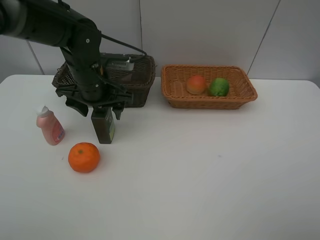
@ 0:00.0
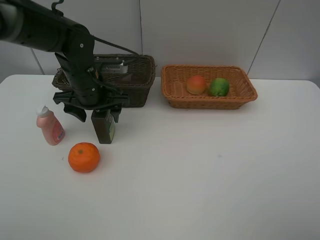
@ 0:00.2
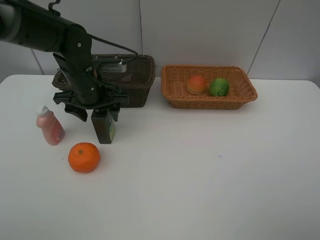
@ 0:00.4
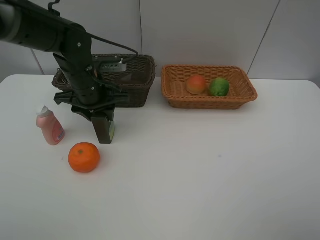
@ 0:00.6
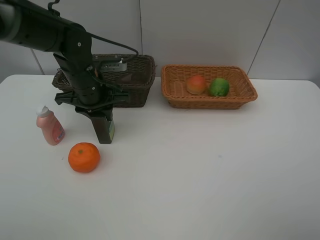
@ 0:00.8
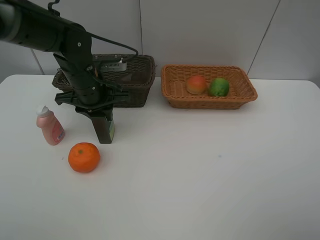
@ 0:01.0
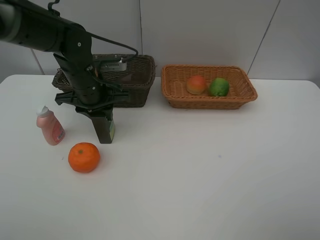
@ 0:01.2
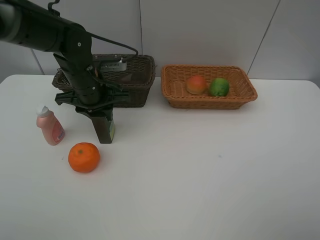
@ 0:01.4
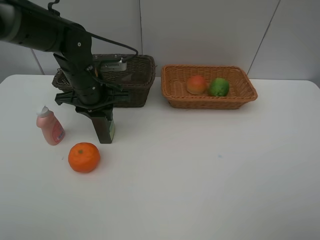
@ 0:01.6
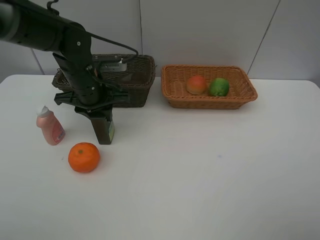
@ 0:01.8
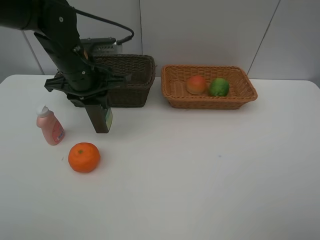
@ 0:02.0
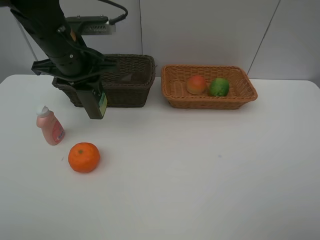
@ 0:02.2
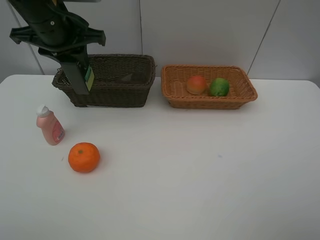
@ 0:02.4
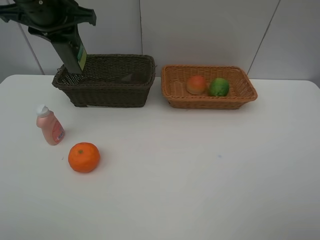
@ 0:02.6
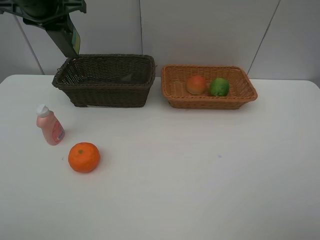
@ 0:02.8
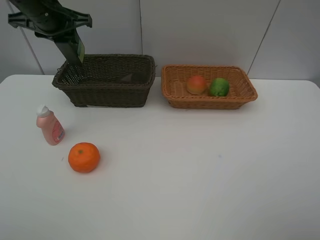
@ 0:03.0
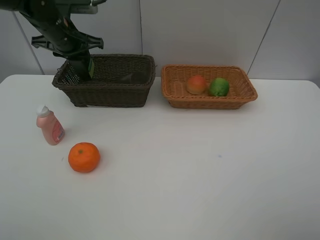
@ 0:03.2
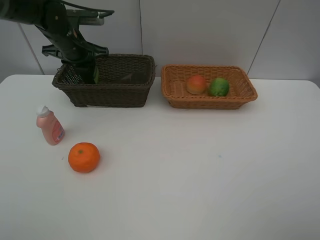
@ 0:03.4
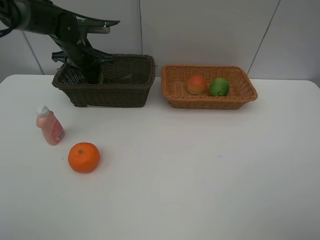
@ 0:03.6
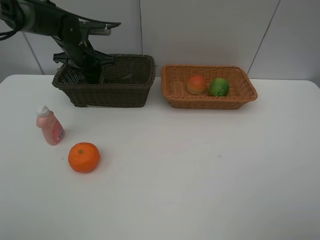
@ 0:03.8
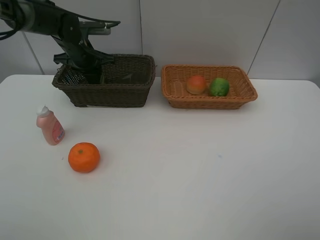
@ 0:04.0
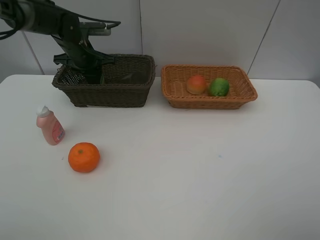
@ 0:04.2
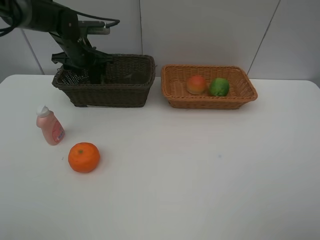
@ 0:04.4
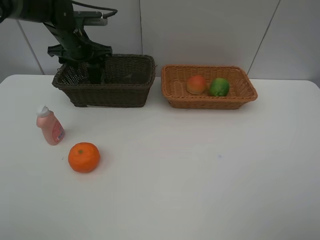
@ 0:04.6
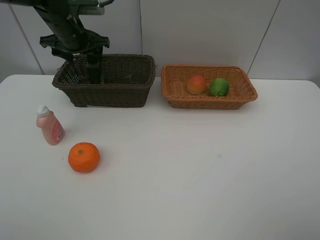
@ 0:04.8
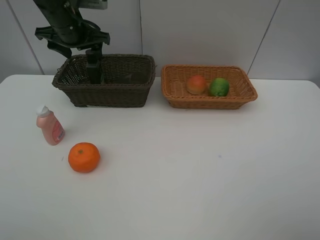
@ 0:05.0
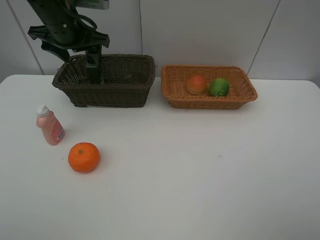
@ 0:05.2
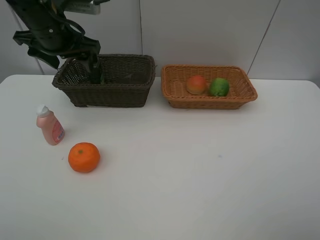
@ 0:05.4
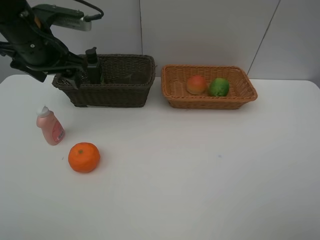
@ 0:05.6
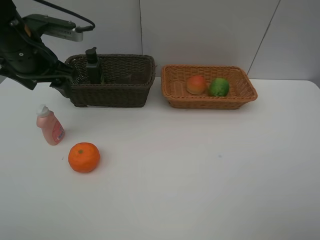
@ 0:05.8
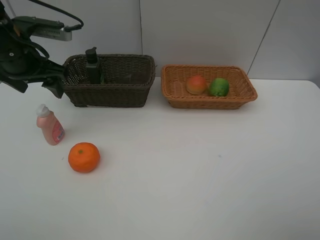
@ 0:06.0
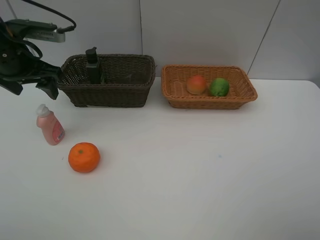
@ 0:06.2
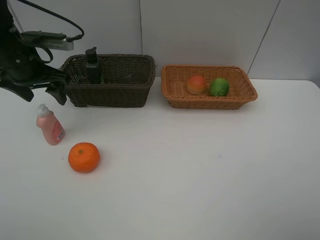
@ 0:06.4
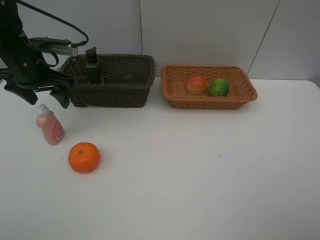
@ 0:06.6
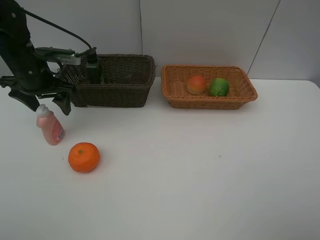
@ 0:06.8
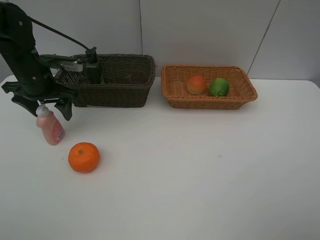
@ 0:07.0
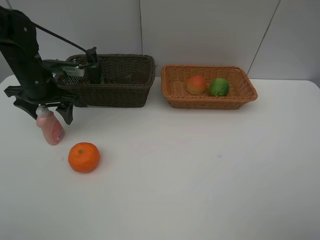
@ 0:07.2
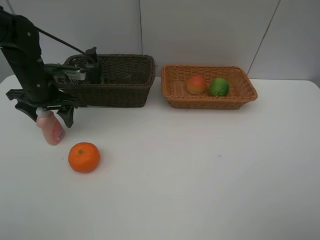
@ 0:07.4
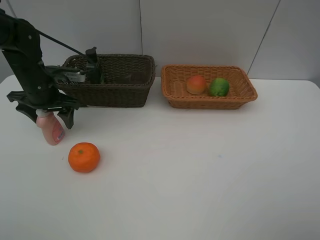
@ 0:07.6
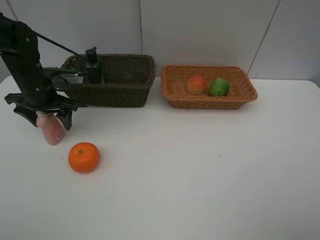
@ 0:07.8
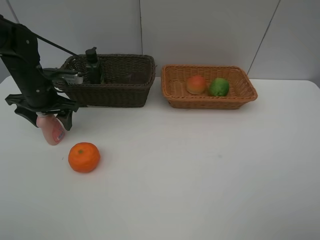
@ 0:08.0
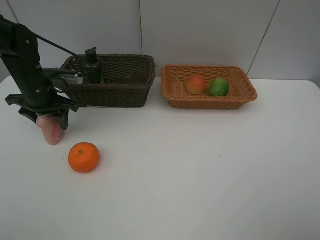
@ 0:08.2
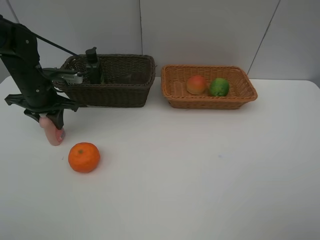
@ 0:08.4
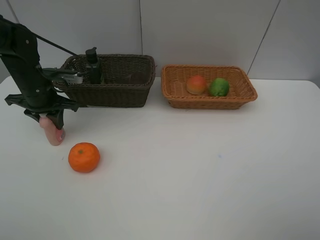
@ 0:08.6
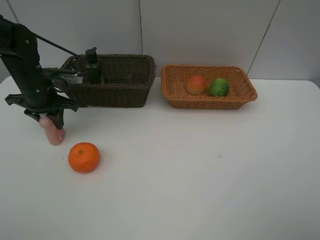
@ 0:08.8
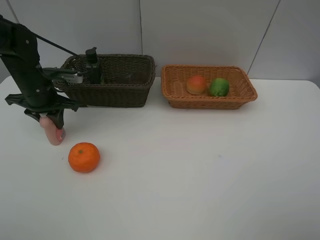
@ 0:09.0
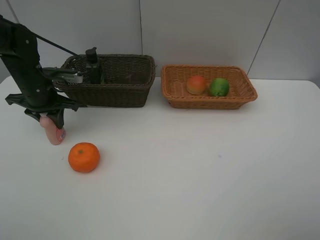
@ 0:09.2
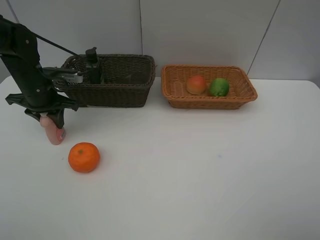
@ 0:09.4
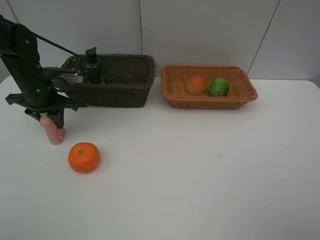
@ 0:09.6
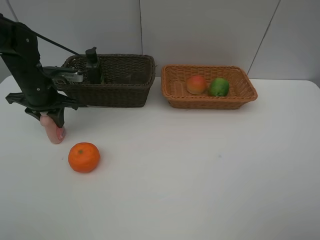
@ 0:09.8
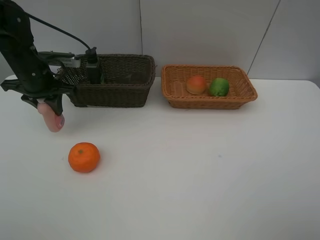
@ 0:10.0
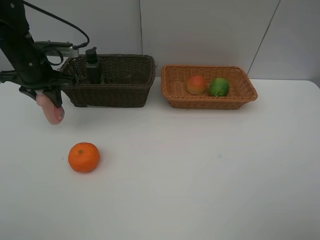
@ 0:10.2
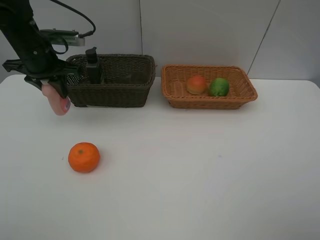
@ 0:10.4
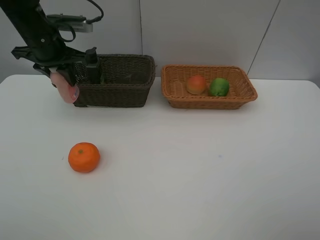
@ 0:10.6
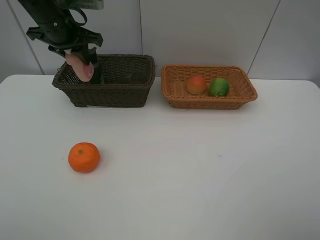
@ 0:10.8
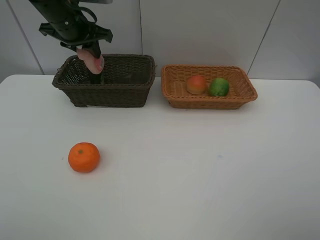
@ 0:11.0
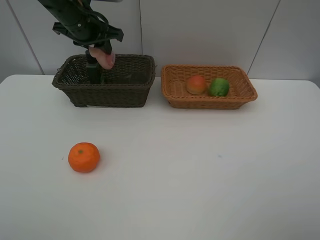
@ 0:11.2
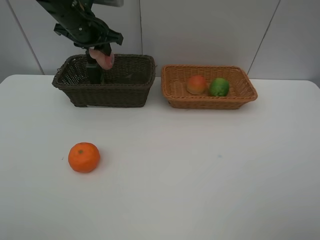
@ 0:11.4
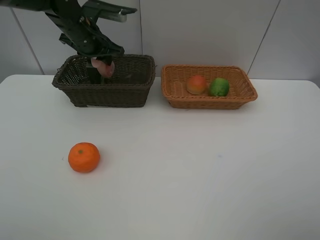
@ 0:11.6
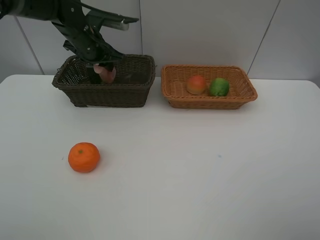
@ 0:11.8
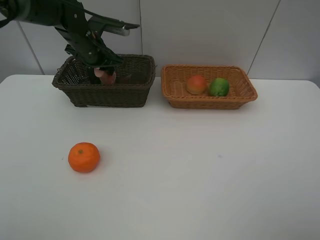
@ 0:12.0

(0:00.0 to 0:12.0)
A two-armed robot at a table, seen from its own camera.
Task of the whole recording: place multiple objects separately in different baskets.
0:00.0 - 0:01.6: The left gripper closes up.
0:01.6 - 0:03.0: The left gripper shifts approximately 15 cm upward, to the left and forward.
0:03.0 - 0:04.4: The left gripper travels downward and forward by about 10 cm, and opens up.
0:04.4 - 0:06.0: The left gripper travels backward and upward by some 15 cm.
0:06.0 - 0:07.6: The left gripper moves downward, approximately 10 cm.
0:07.6 - 0:09.0: The left gripper closes up.
0:09.0 - 0:10.4: The left gripper moves upward, some 10 cm.
0:10.4 - 0:12.0: The left gripper goes roughly 10 cm to the right and forward.

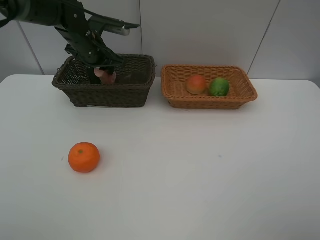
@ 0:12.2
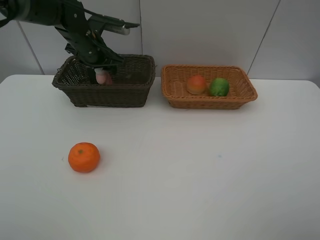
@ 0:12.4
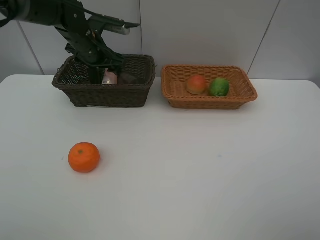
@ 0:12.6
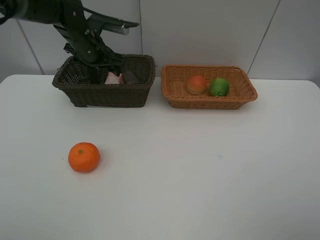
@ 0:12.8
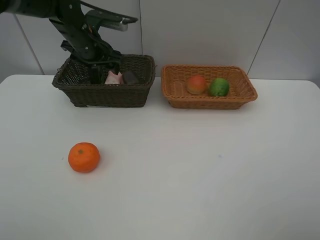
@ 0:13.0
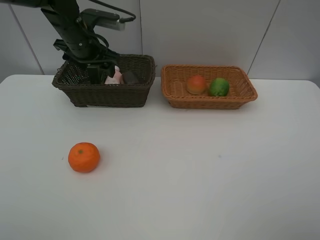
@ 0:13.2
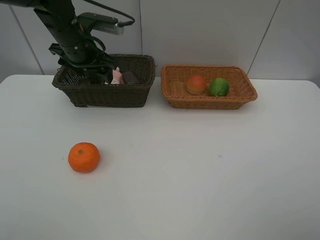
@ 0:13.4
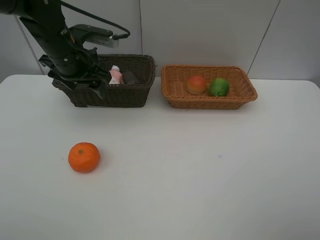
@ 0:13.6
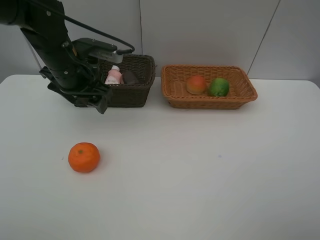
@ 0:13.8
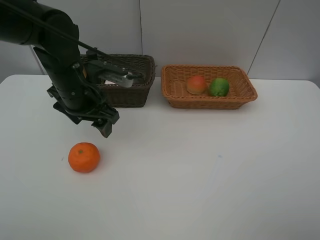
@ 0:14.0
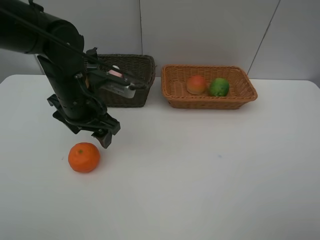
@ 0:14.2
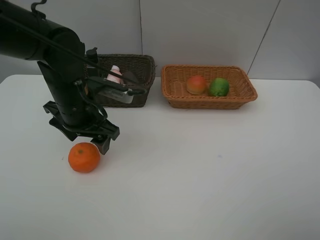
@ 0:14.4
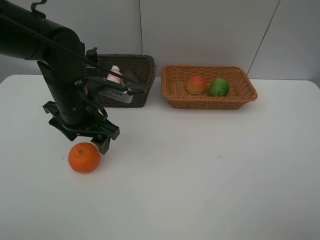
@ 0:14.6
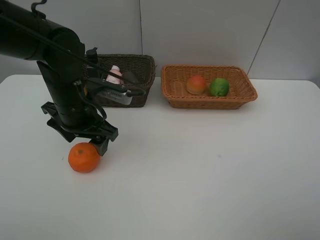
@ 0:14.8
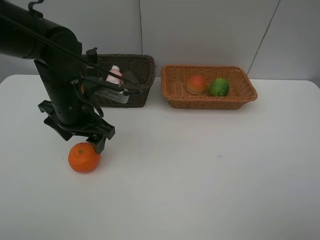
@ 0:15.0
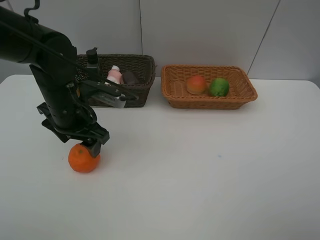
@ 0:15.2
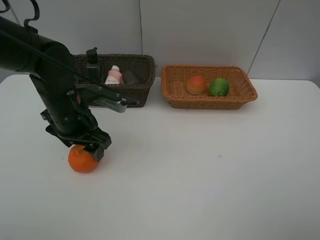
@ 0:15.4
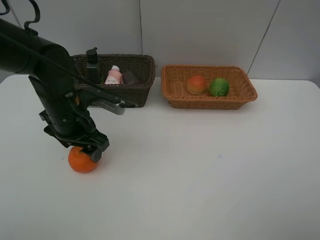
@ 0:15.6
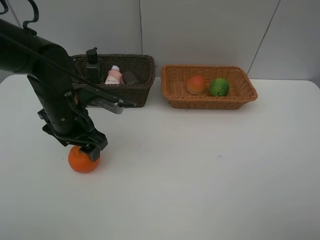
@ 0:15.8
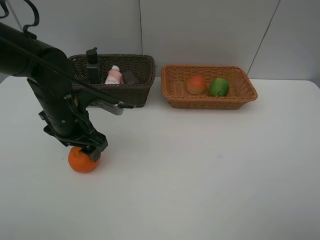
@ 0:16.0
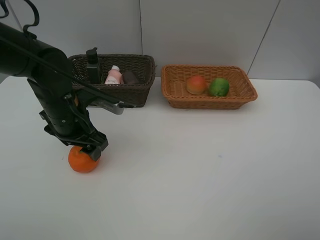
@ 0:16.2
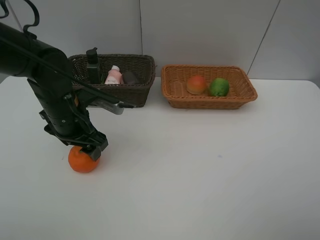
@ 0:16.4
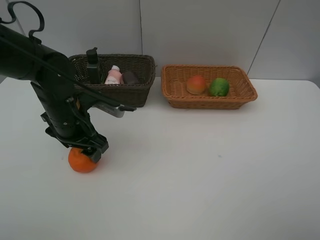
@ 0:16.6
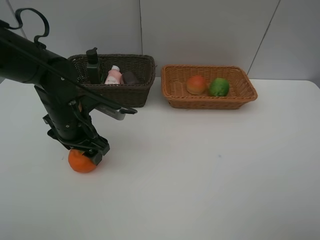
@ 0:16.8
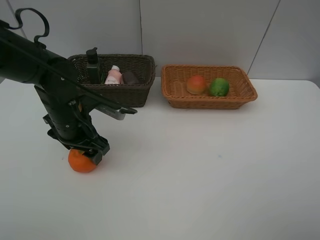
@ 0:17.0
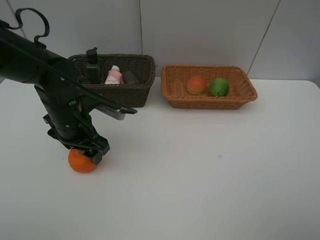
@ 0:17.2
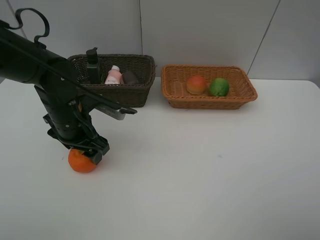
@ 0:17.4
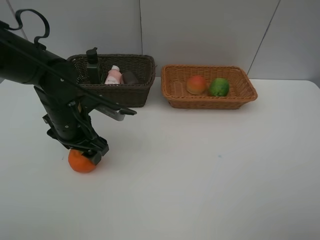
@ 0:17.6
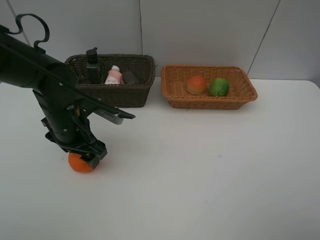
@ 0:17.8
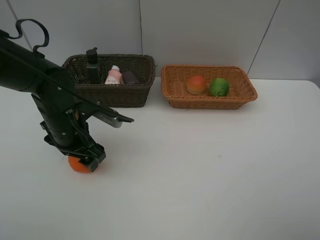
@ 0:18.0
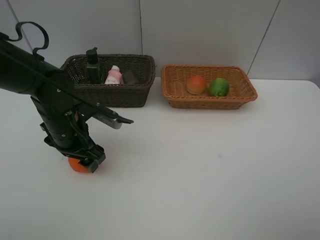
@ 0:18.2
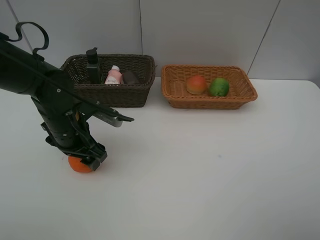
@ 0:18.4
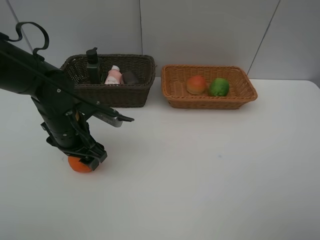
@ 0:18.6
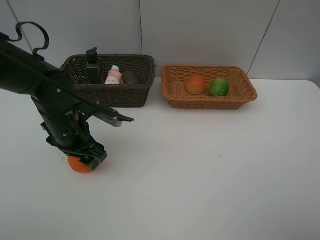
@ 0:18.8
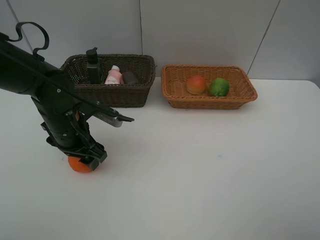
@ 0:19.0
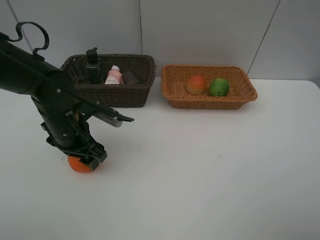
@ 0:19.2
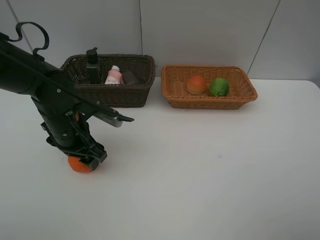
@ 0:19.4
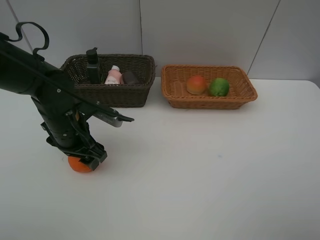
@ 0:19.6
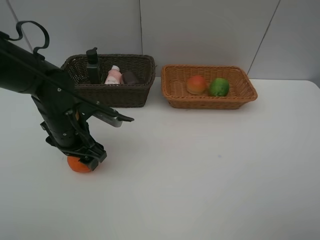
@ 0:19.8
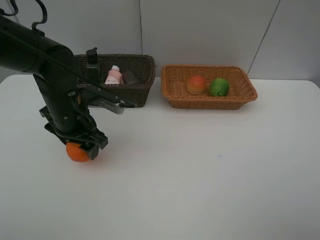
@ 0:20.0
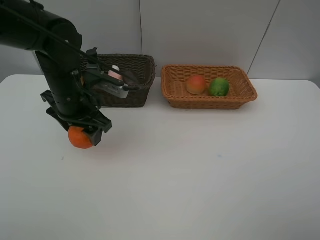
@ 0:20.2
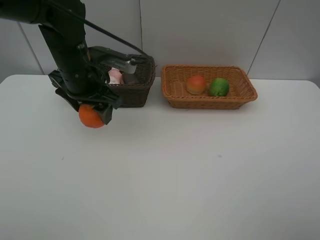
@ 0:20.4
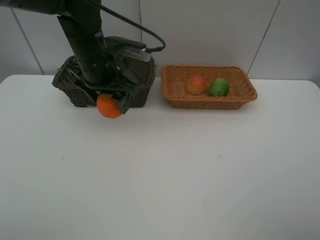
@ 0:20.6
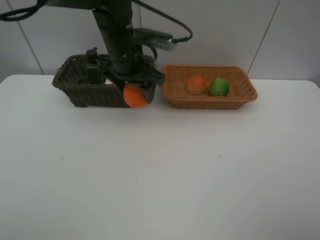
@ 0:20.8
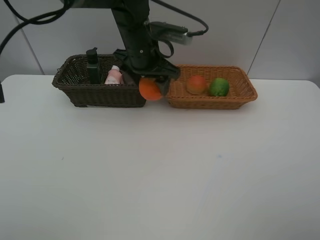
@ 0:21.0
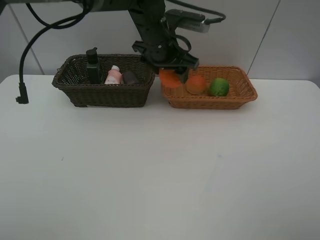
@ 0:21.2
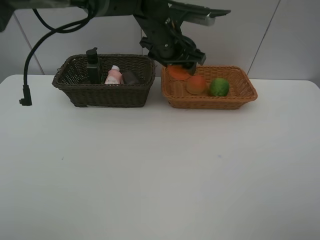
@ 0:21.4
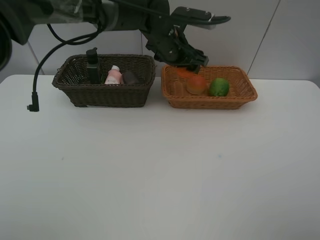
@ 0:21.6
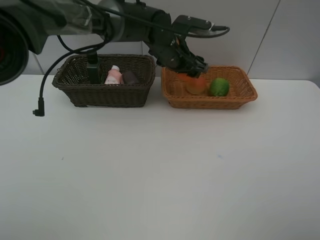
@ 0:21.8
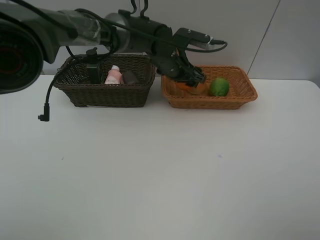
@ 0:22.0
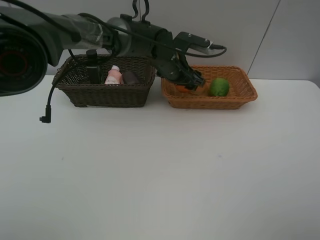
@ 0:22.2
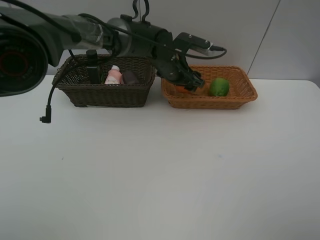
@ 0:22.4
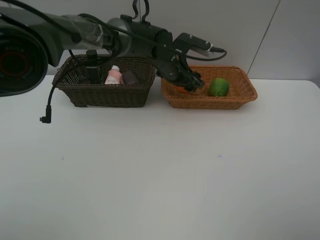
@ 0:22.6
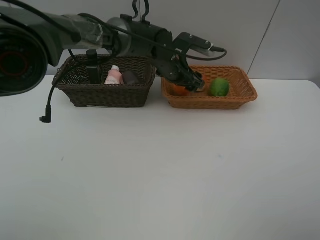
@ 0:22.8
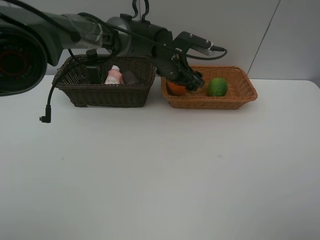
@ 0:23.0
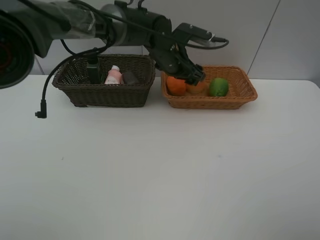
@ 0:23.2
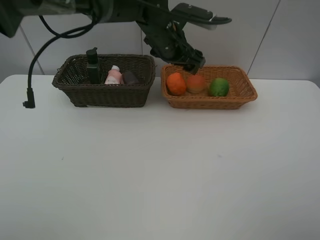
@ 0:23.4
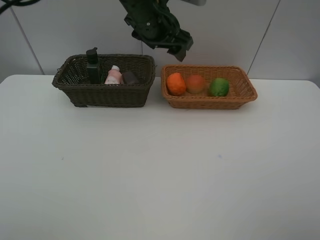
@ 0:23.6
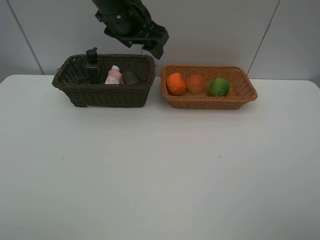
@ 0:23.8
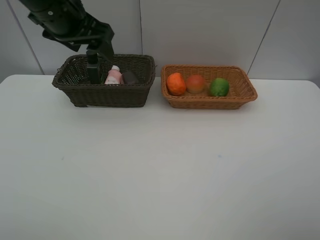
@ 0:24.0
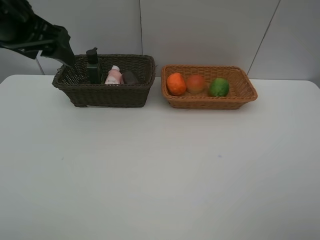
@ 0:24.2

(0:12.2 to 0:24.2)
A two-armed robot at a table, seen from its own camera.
Task of the whole recording: place multiple objects separately in different baskets.
0:12.2 - 0:13.8: The left gripper shifts about 10 cm backward, and opens its fingers.
0:13.8 - 0:15.2: The left gripper moves backward, approximately 5 cm.
0:15.2 - 0:18.2: The grippers stay close to where they were, moving slightly.
0:18.2 - 0:19.8: The two grippers keep their place.
0:19.8 - 0:21.2: The left gripper goes approximately 25 cm to the right, forward and upward.
0:21.2 - 0:22.6: The left gripper shifts about 10 cm downward.
0:22.6 - 0:24.2: The left gripper travels to the left, upward and backward by approximately 35 cm.
